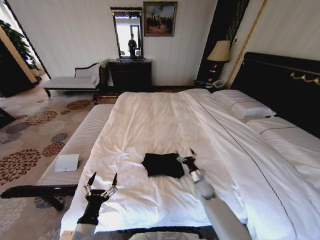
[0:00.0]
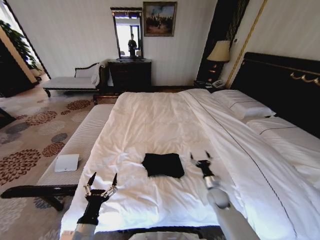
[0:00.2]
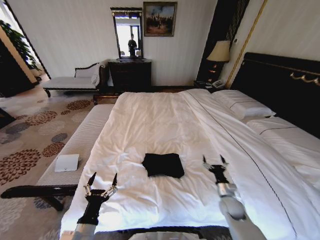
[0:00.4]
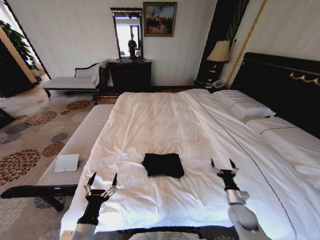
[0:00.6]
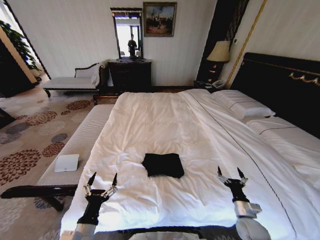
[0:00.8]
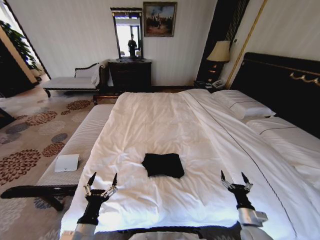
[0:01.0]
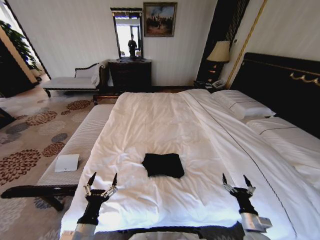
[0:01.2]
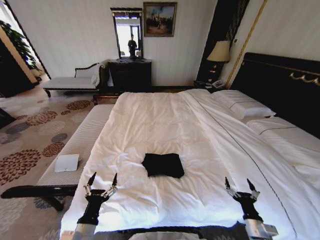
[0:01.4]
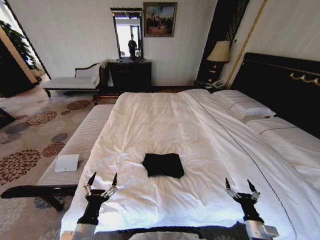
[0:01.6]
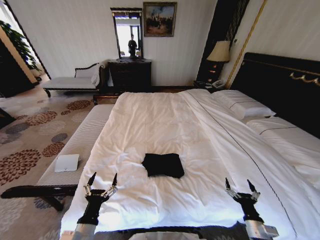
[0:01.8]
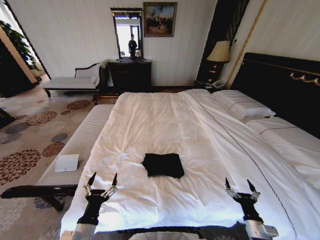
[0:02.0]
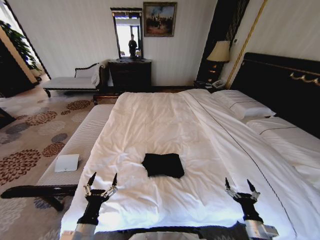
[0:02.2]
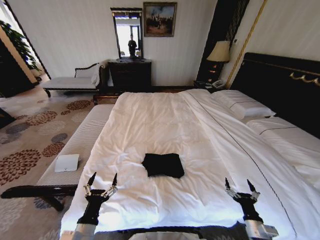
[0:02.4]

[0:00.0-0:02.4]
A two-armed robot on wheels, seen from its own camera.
Task of the whole recording: Fold the clothes on the bed.
0:00.0 to 0:01.2: The right gripper moves backward and to the right, roughly 25 cm.
0:01.2 to 0:02.4: The grippers move only a little.

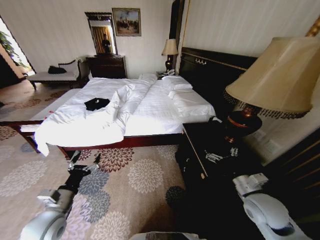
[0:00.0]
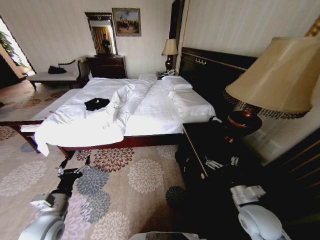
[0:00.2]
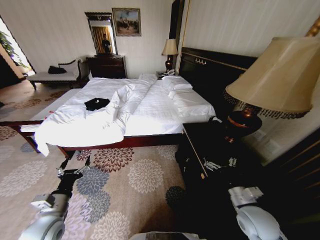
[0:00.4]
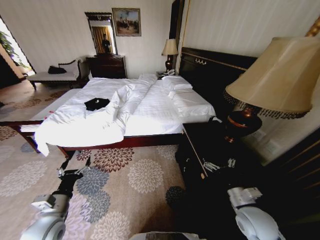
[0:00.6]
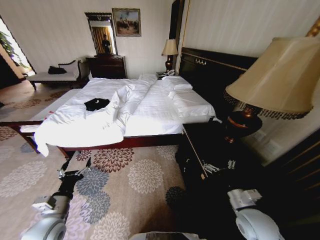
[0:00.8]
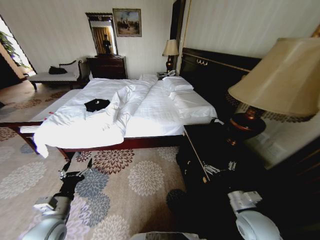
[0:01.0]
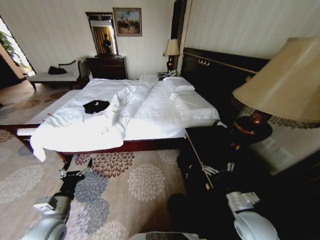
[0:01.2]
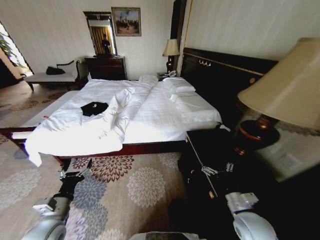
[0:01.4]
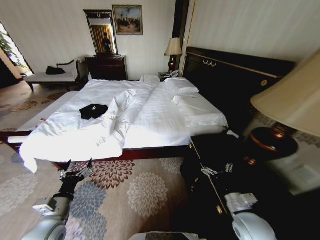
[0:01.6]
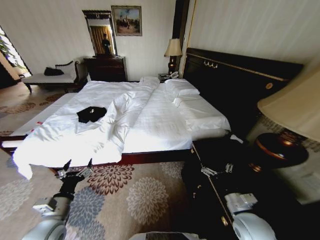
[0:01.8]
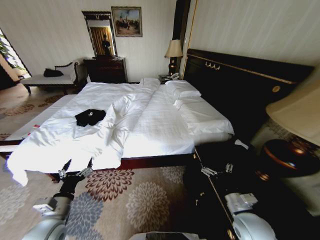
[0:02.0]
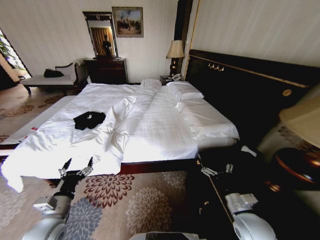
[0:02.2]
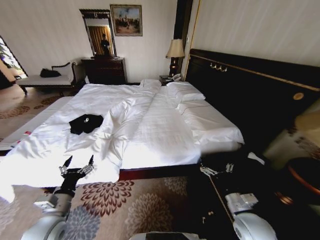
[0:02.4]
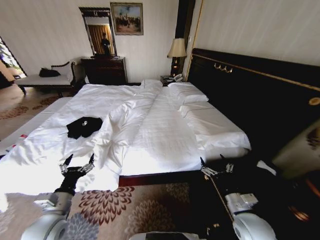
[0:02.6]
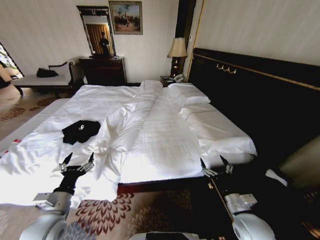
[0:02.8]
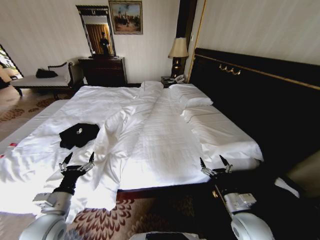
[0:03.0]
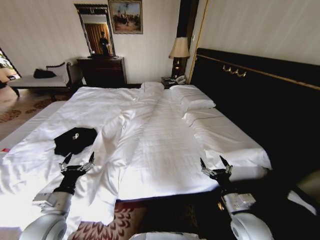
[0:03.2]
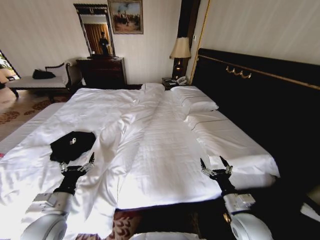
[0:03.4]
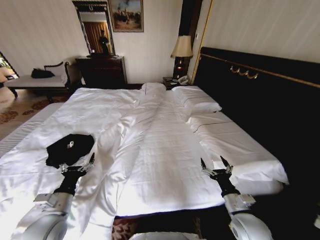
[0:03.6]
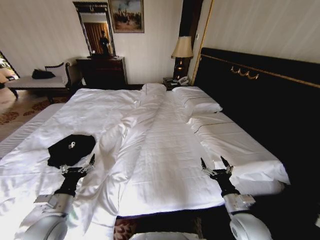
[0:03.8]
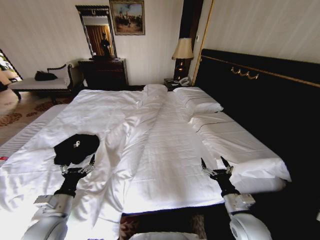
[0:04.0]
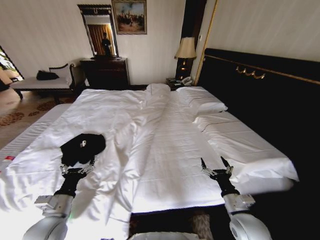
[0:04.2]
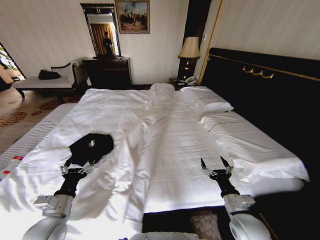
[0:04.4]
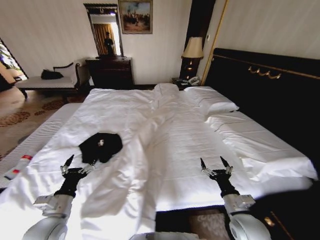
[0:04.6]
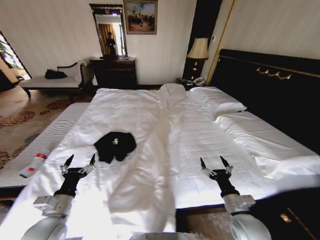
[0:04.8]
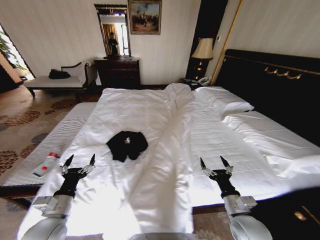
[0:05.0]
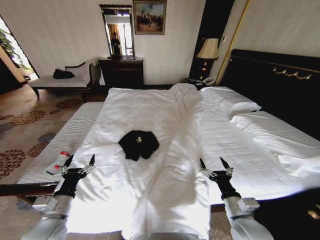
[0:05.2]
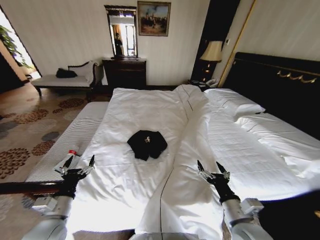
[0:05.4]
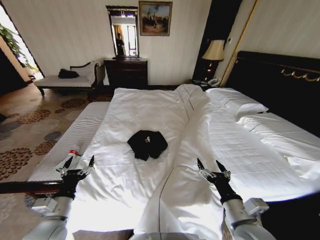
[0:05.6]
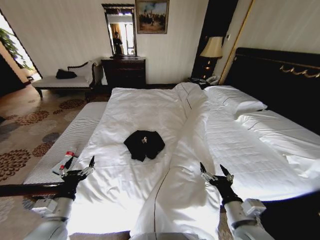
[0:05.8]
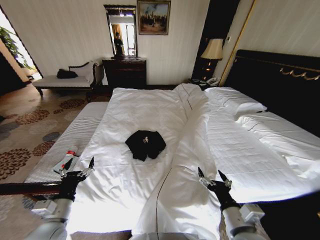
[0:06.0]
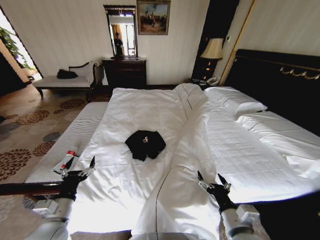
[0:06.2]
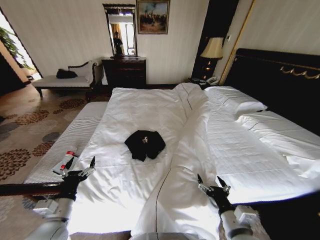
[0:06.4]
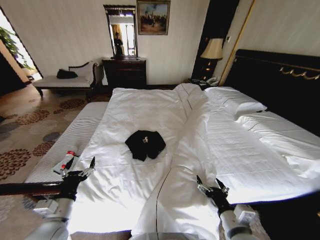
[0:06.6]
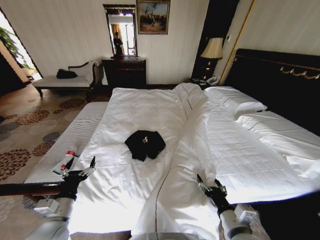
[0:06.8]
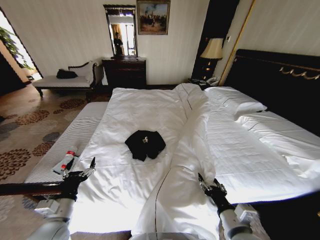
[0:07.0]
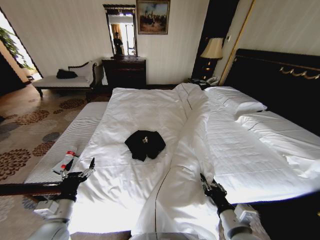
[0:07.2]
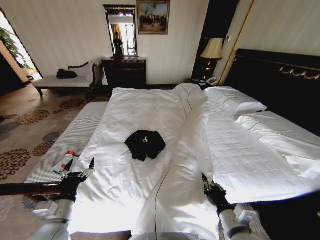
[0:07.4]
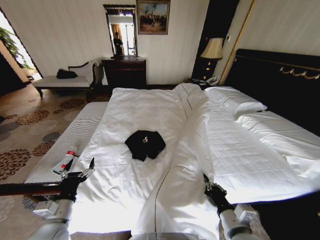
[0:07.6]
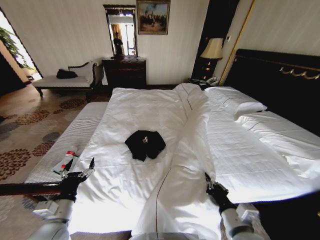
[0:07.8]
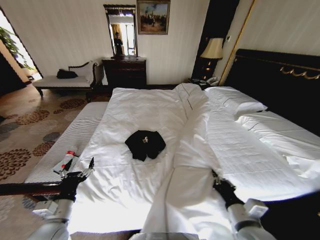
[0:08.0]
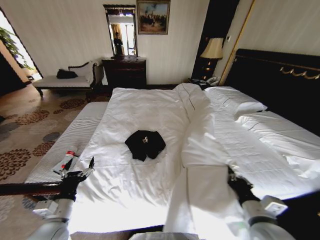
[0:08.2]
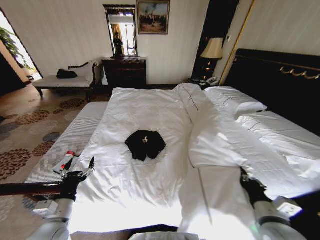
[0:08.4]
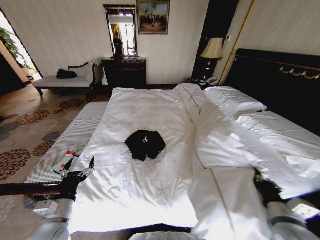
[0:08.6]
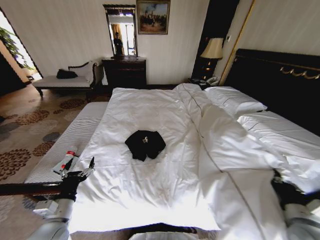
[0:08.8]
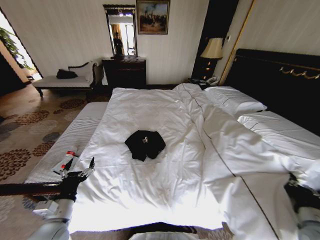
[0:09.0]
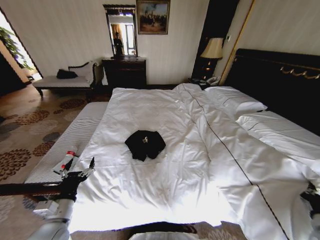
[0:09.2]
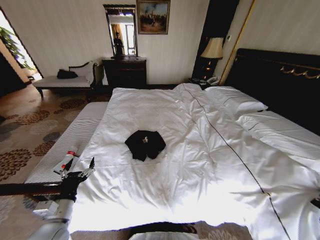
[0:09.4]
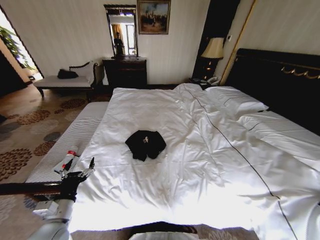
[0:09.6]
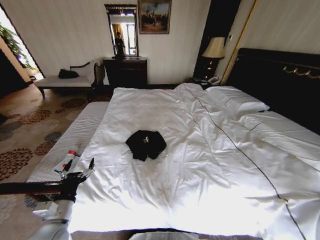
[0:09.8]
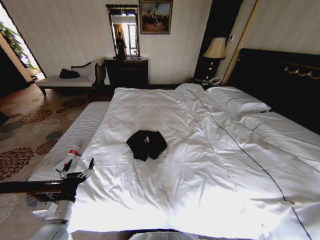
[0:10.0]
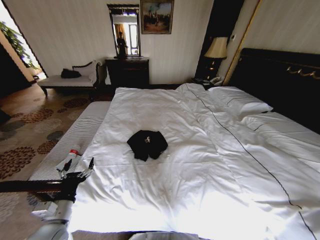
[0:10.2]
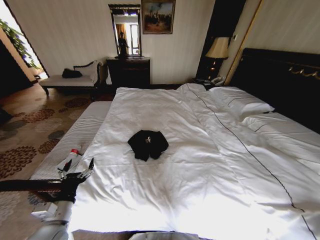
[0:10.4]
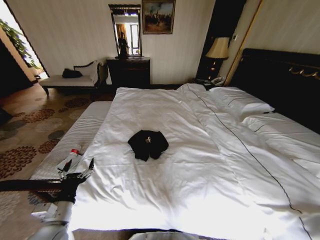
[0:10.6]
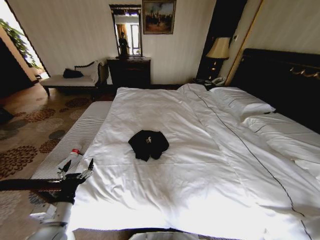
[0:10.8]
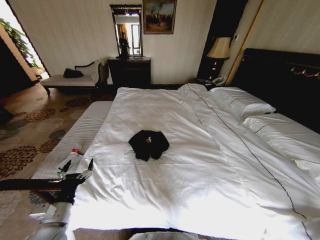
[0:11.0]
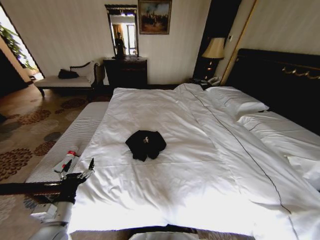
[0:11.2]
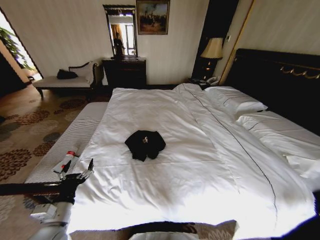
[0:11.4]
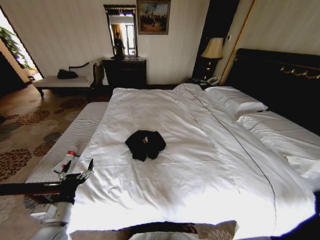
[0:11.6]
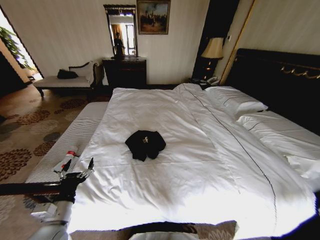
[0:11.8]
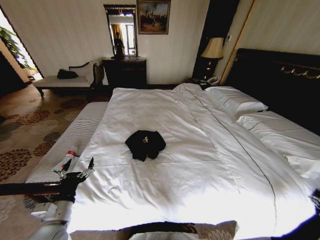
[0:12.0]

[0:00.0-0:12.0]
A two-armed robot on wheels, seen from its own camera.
Task of the whole recording: Fold the clothes on the bed.
0:04.4 to 0:06.0: The right gripper shifts about 10 cm upward, backward and to the left.
0:06.0 to 0:07.6: The right gripper closes up.
0:07.6 to 0:09.0: The right gripper is displaced to the right by some 20 cm.
0:09.0 to 0:10.4: The right gripper heads to the right and downward, covering about 25 cm.
0:10.4 to 0:12.0: The right gripper opens up.

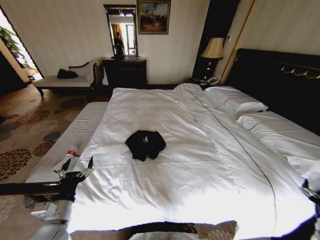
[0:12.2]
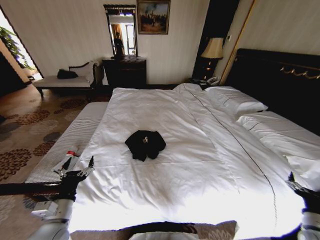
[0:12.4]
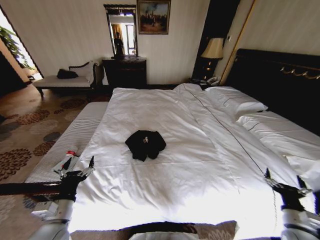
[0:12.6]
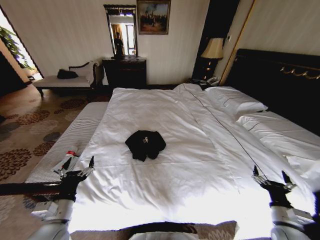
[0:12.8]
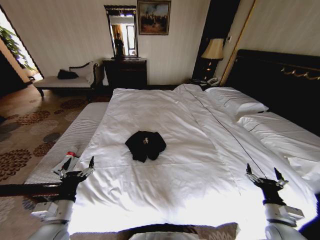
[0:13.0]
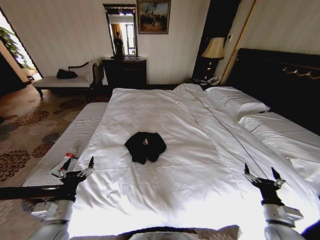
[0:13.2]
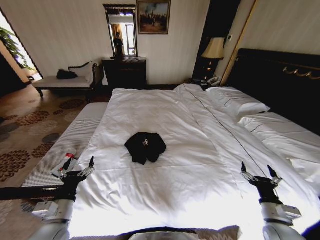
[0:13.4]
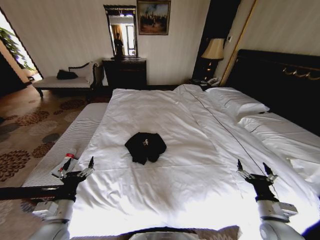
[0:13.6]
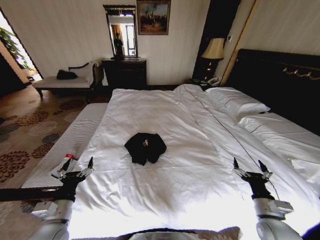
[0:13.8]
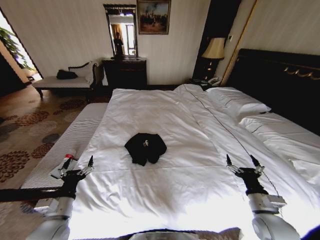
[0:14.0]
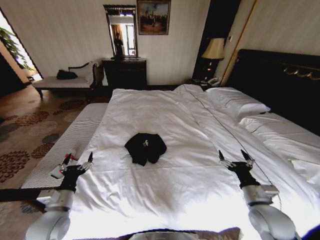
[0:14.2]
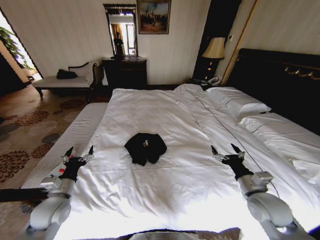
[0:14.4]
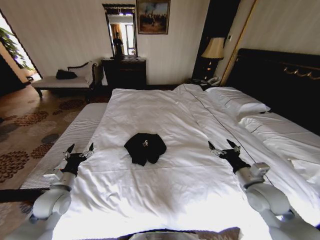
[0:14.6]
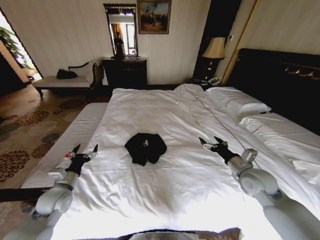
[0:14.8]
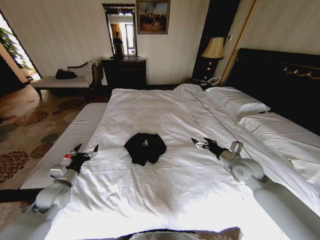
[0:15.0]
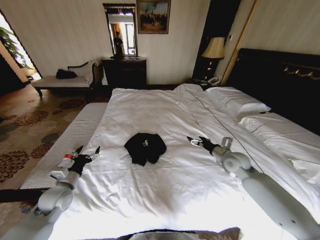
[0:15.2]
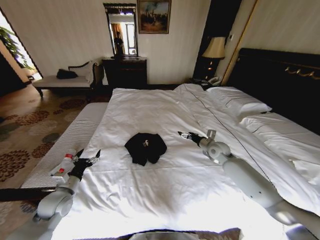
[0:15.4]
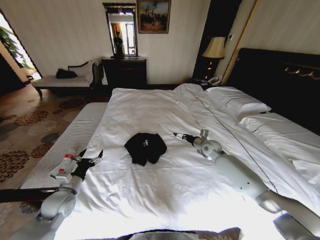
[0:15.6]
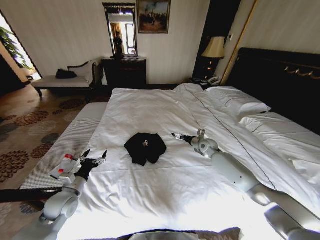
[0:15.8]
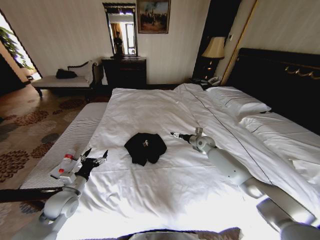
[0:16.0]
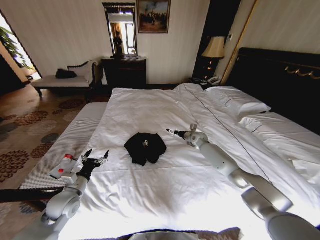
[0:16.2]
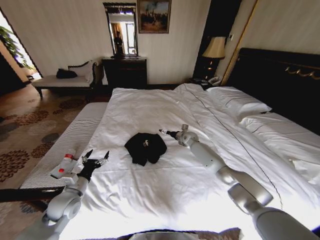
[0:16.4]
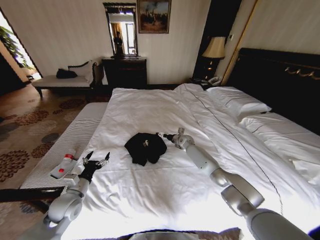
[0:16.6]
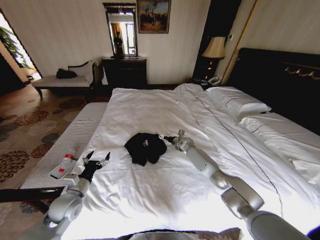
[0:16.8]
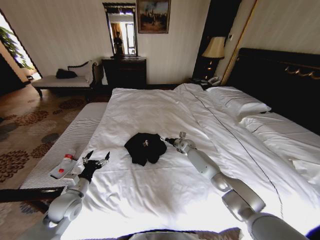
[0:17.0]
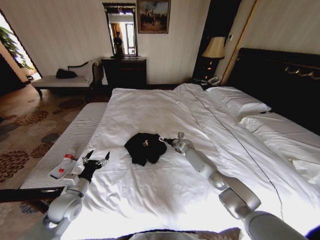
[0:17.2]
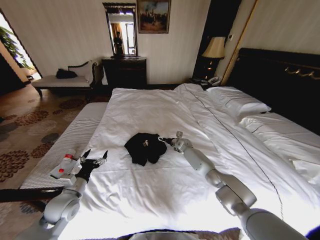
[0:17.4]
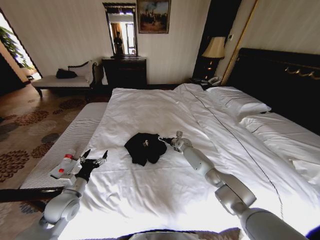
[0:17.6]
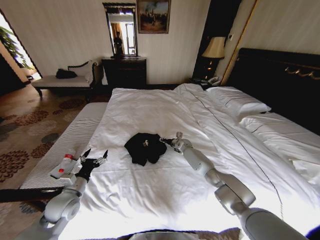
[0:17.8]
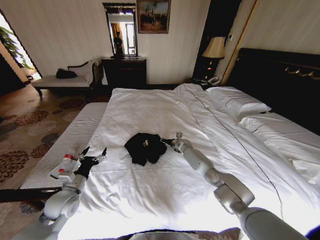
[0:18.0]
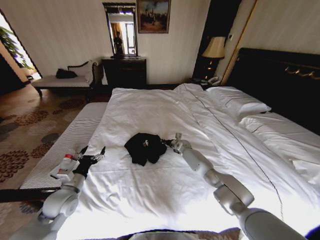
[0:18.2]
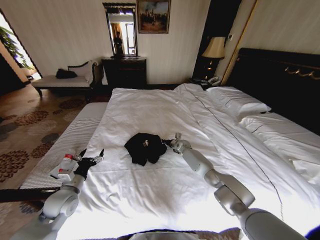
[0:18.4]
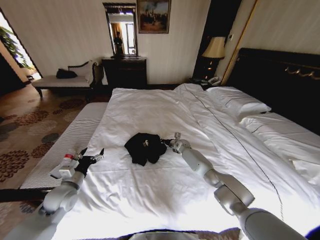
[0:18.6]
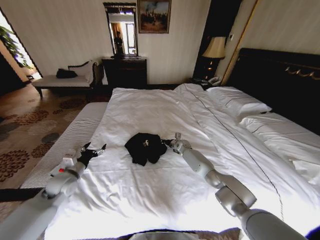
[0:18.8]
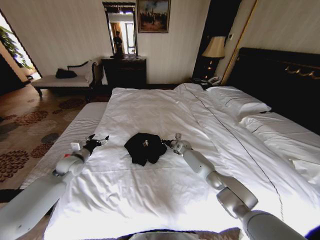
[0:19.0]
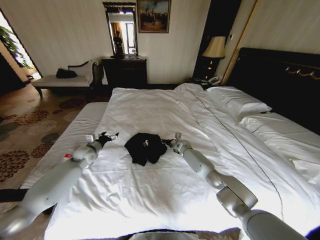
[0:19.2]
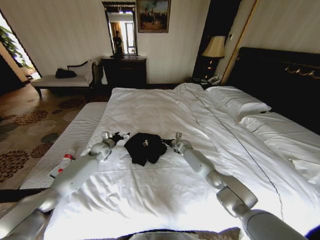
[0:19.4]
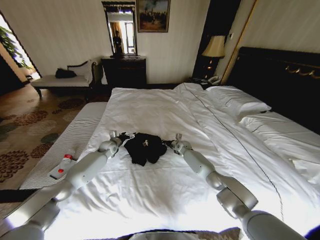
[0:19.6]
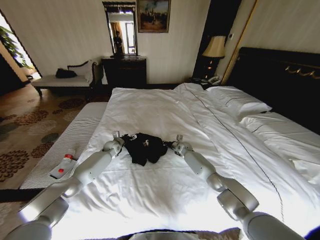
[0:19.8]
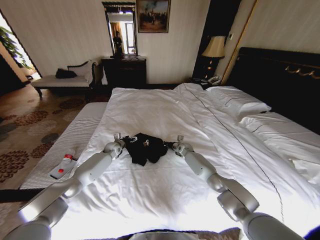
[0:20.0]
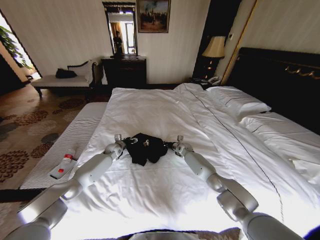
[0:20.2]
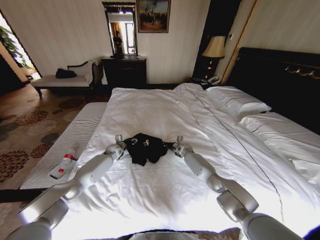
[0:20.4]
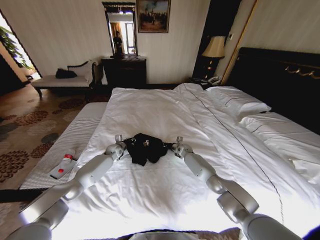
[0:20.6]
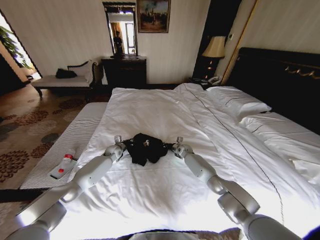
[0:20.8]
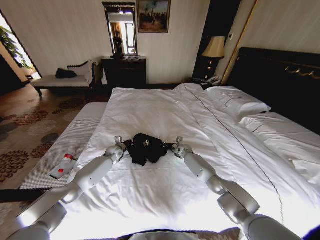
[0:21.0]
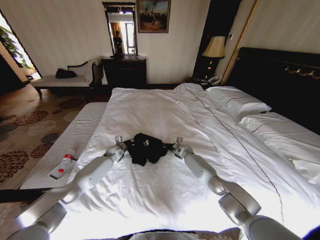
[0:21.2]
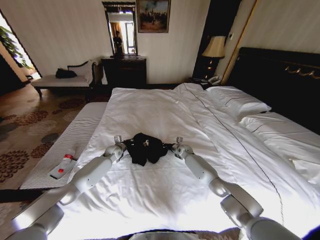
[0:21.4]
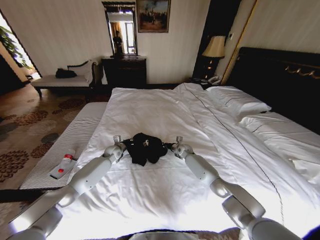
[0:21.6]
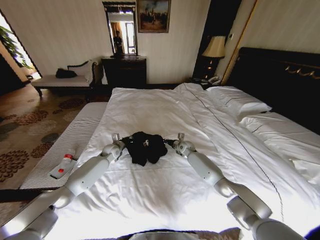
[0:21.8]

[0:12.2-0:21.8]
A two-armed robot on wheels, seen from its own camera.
Task of the whole recording: Fold the clothes on the bed.
0:12.2 to 0:13.8: The right gripper travels to the left by approximately 20 cm.
0:13.8 to 0:15.4: The left gripper shifts approximately 10 cm forward and to the left. Meanwhile the right gripper shifts about 30 cm forward.
0:15.4 to 0:17.0: The right gripper goes some 20 cm forward, downward and to the left.
0:17.0 to 0:18.6: The right gripper closes up.
0:18.6 to 0:20.2: The left gripper moves forward, about 30 cm.
0:20.2 to 0:21.8: The left gripper closes up.
